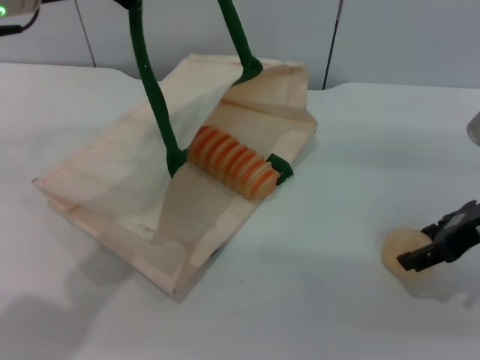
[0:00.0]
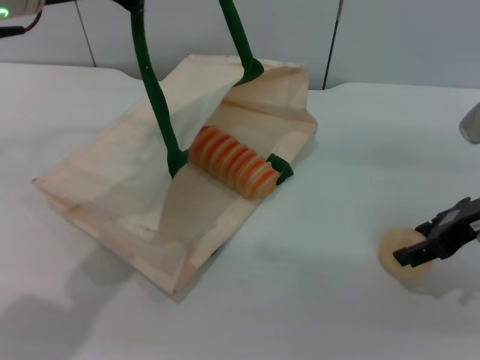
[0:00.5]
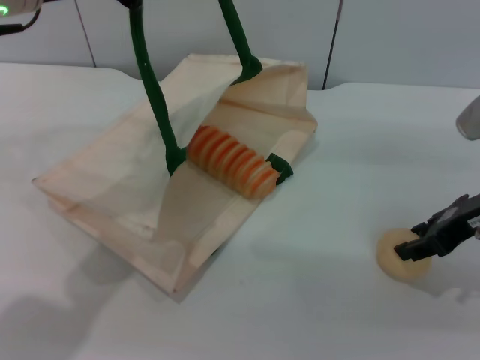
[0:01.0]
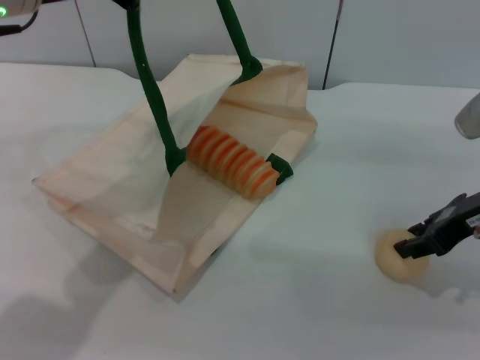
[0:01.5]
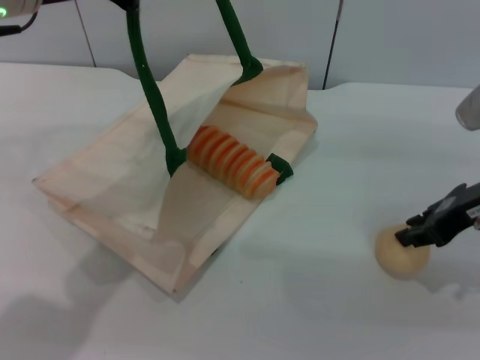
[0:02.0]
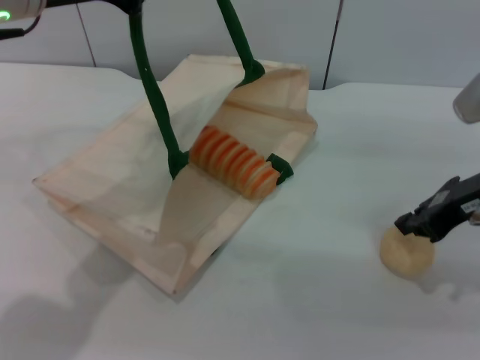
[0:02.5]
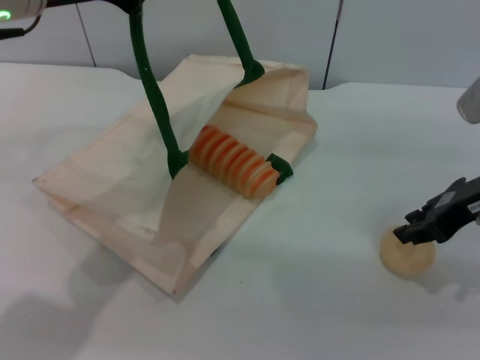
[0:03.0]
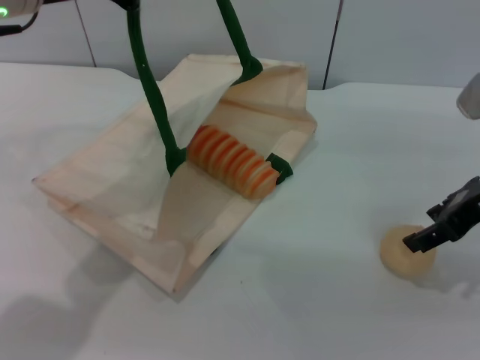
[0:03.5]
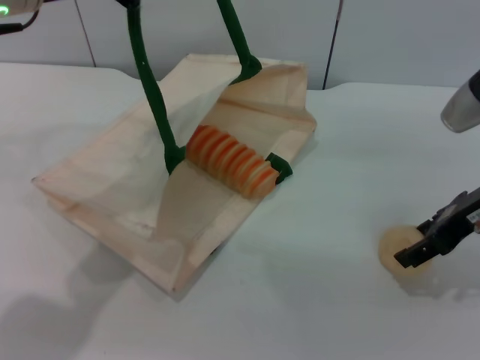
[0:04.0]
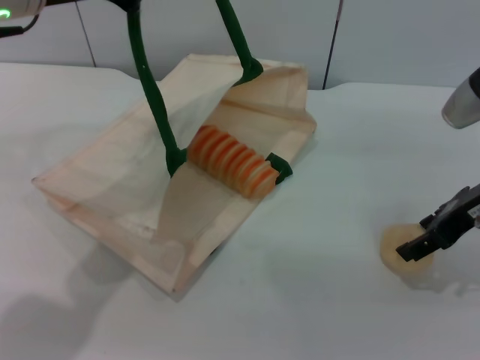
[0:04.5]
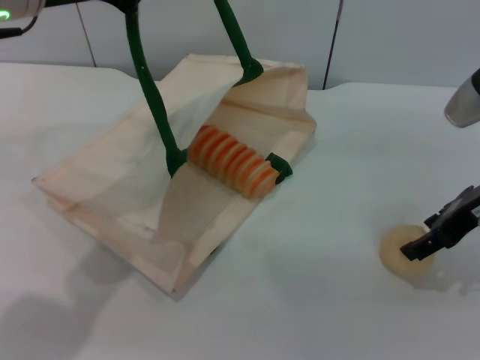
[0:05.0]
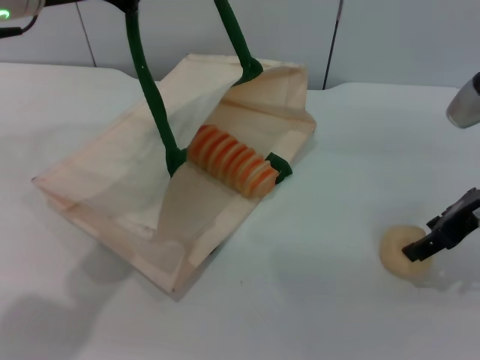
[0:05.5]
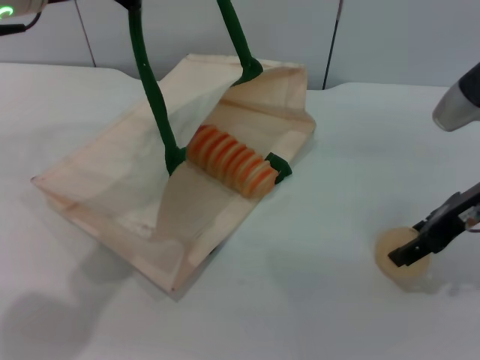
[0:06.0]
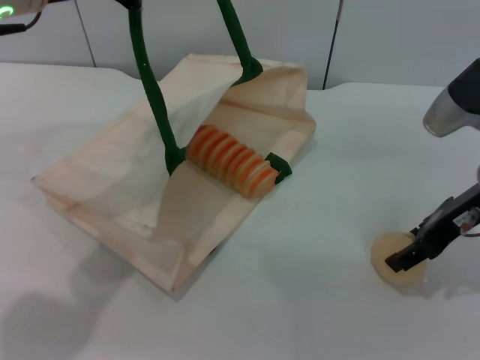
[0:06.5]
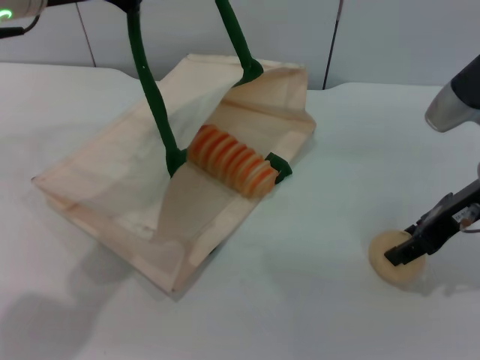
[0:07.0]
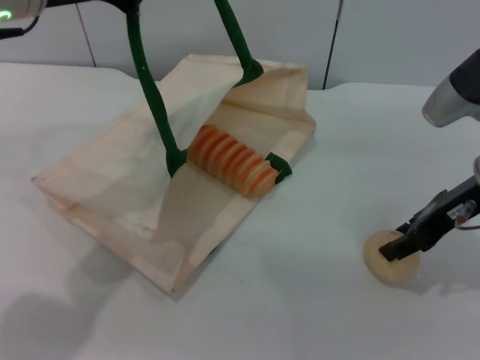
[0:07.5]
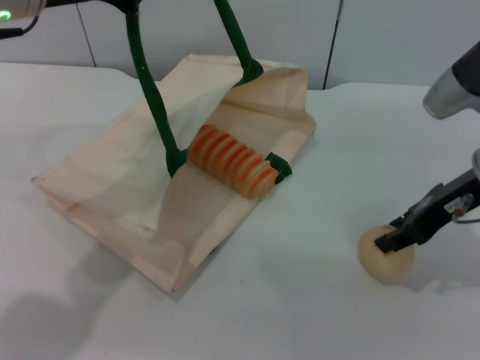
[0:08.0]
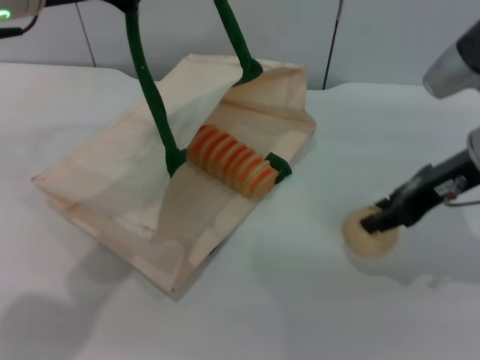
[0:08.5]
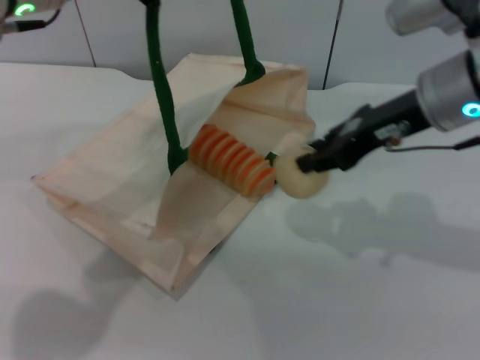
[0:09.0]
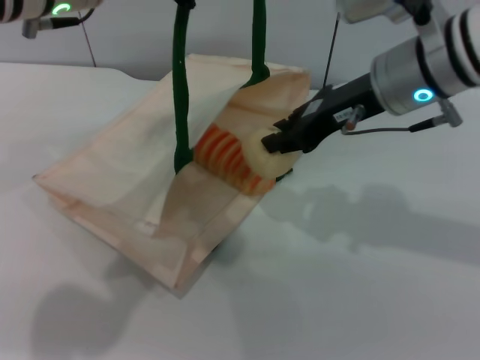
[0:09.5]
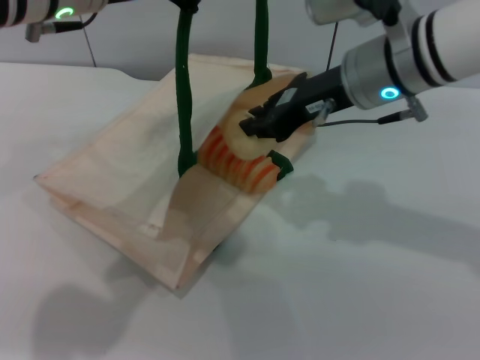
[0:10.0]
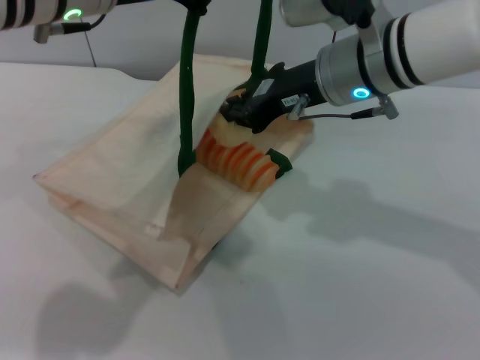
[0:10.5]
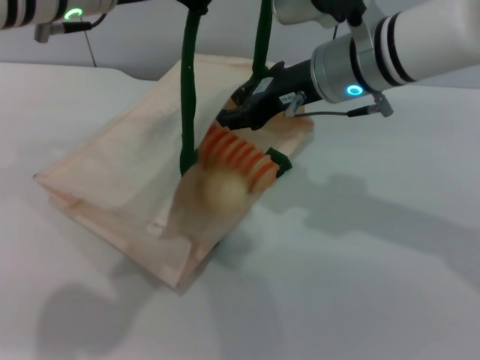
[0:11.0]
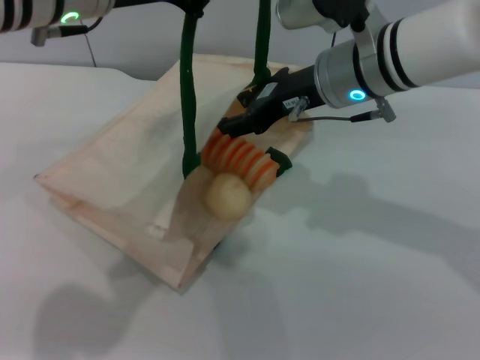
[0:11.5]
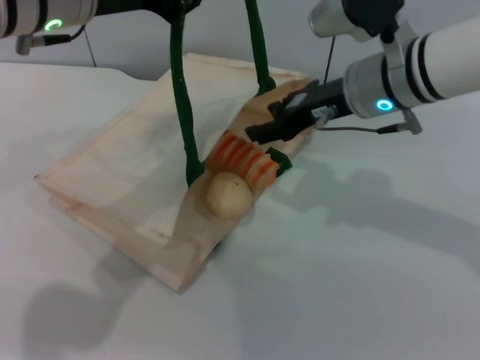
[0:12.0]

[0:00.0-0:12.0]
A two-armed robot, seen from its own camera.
Task of the whole recording: pick up the bread and egg yolk pastry from the table and place it in the white handbag.
Step, 0:00.0 to 0:08.0: Pick up the egg yolk pastry with the right gripper.
Step, 0:08.5 to 0:11.0: Place the egg yolk pastry into the woven bag with the right gripper.
0:00.0 to 0:02.0: The right gripper closes.
0:02.0 to 0:04.0: The right gripper opens up.
0:04.0 to 0:06.0: Both grippers stay about where they are.
0:06.0 to 0:08.0: The right gripper closes.
0:08.0 to 0:10.0: The right gripper moves to the left, some 10 cm.
0:10.0 to 0:12.0: The right gripper opens its fingers.

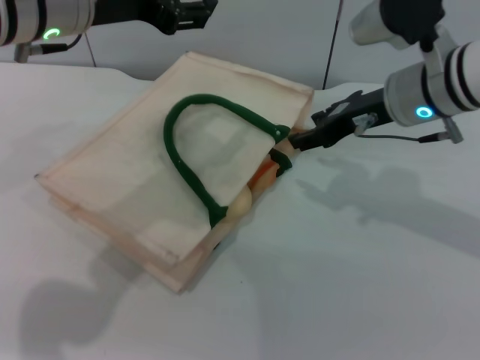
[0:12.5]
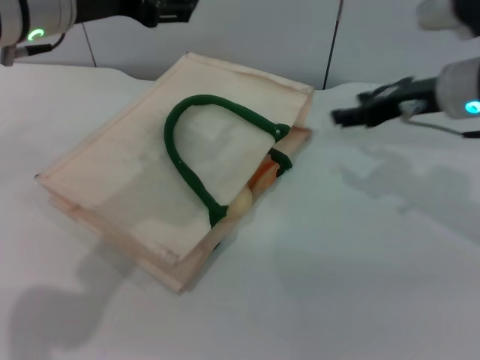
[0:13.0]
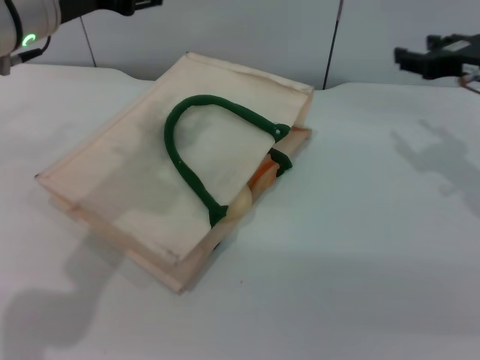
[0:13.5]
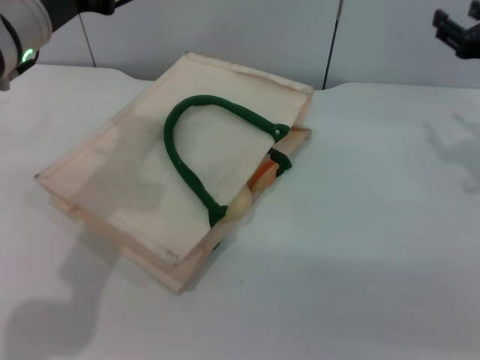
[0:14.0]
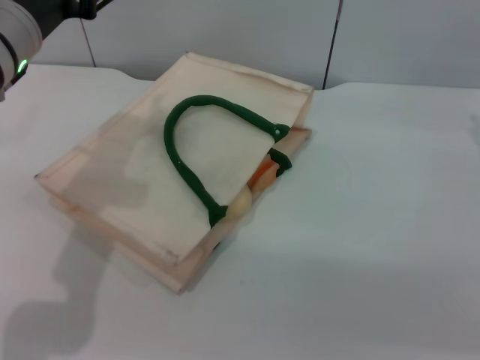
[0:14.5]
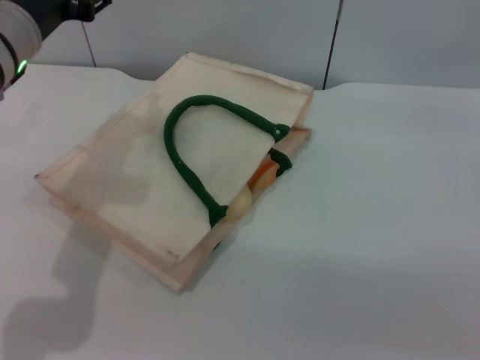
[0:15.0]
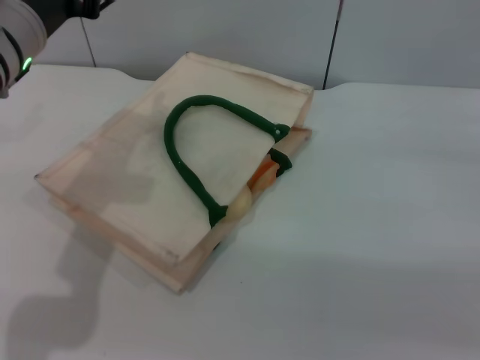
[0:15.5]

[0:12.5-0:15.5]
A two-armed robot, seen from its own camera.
Task of the whole recording: pick up the bread and egg yolk pastry from the table and place it in the white handbag.
0:12.5 to 0:14.0: The left gripper shifts by approximately 5 cm, and opens. The right gripper is displaced to the right by about 15 cm.
0:14.0 to 0:15.5: The right gripper shifts by some 5 cm.
